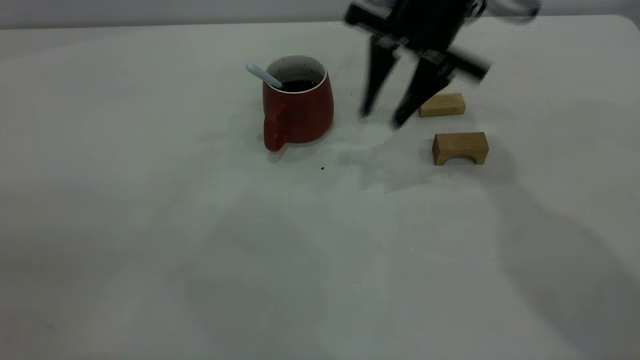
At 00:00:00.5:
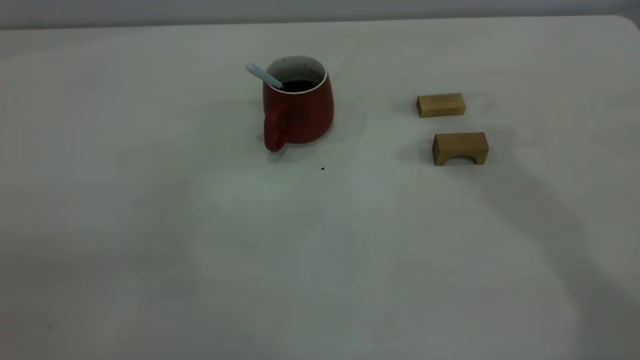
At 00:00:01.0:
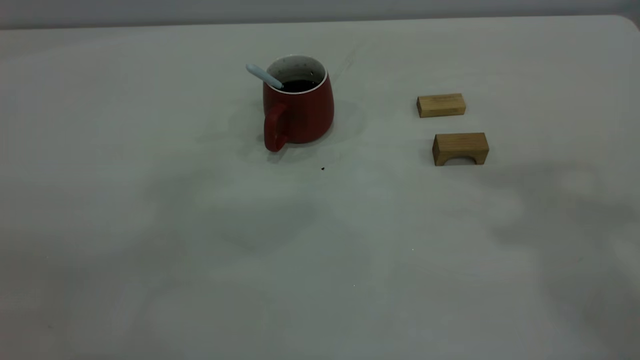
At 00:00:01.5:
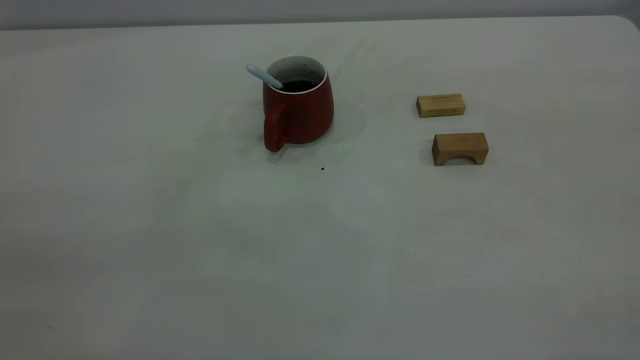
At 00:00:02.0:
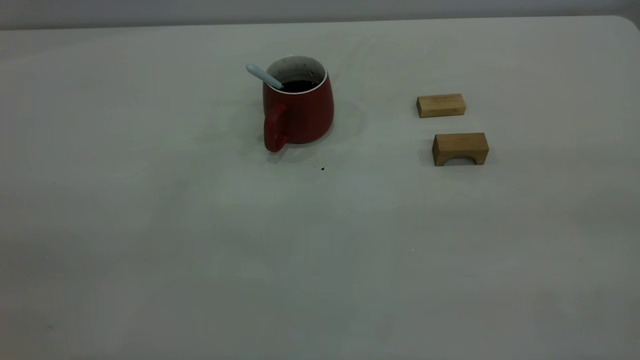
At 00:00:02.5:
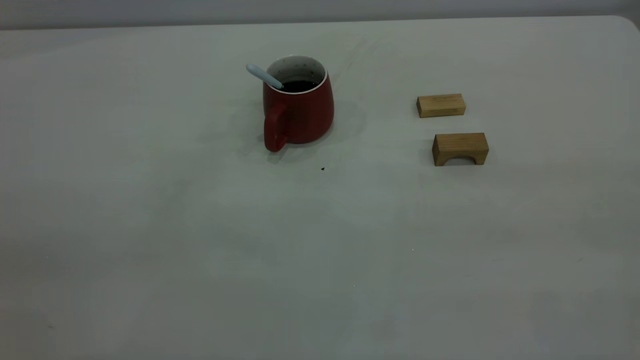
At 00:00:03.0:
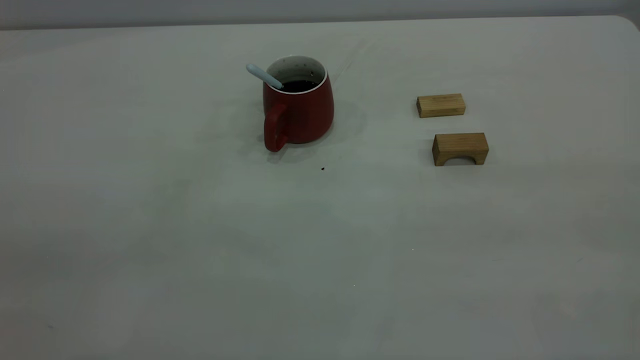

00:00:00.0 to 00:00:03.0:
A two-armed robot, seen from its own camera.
00:00:00.0 to 00:00:01.5: The right gripper travels backward, upward and to the right by about 50 cm.
